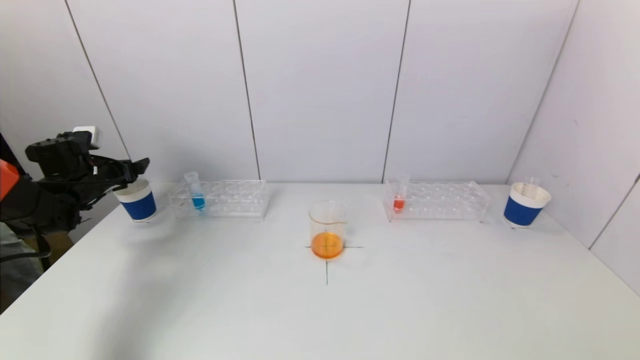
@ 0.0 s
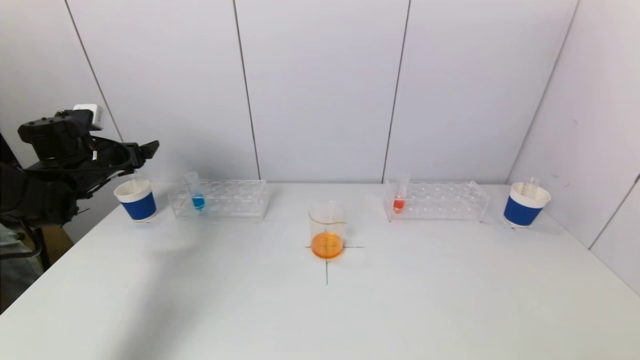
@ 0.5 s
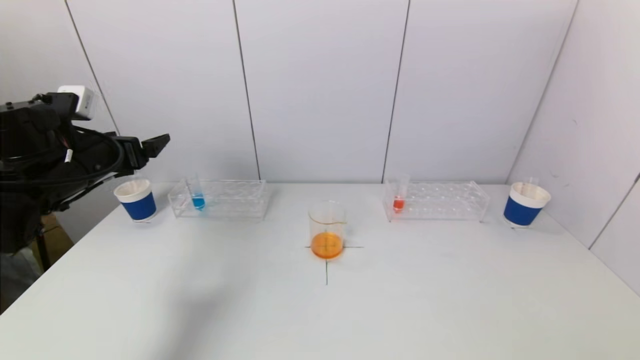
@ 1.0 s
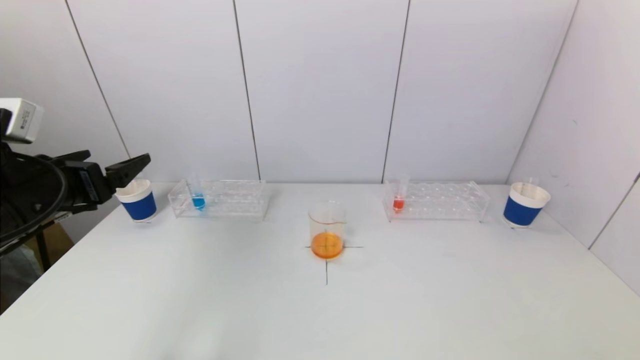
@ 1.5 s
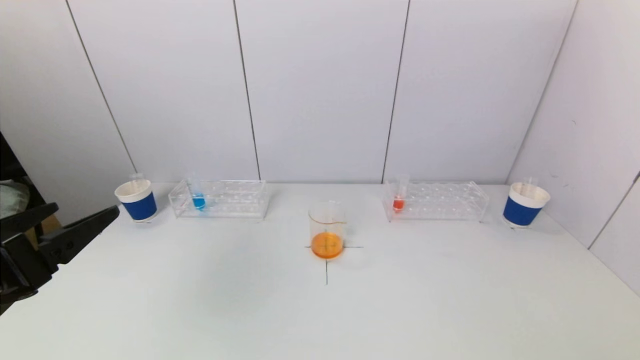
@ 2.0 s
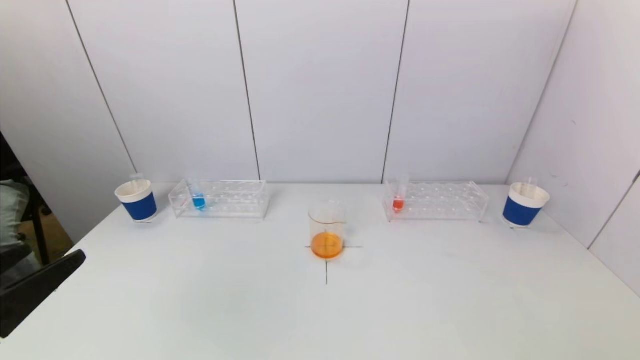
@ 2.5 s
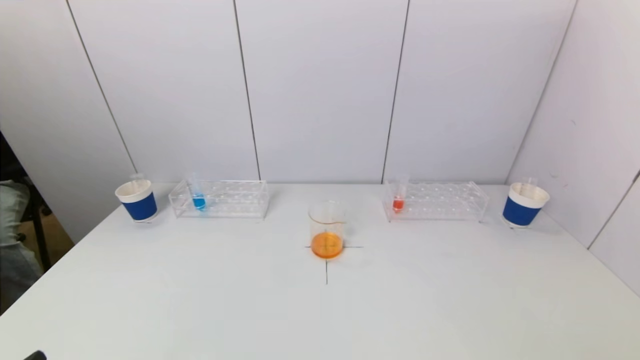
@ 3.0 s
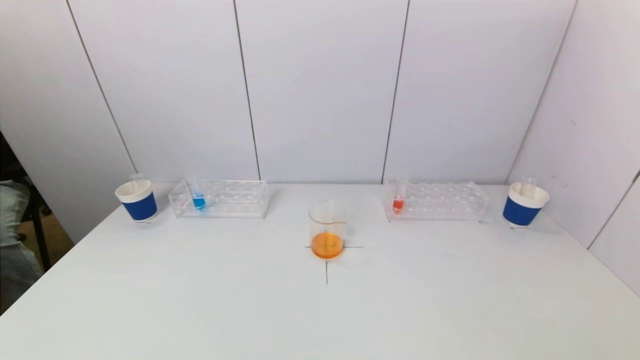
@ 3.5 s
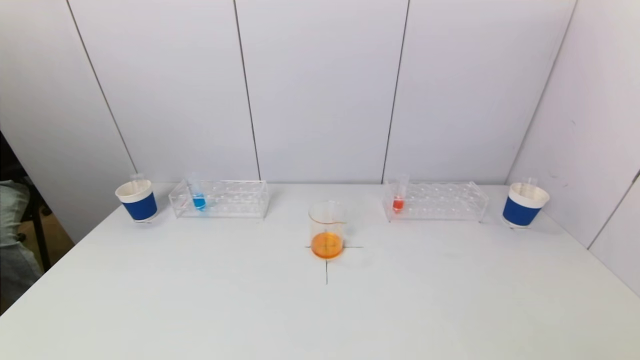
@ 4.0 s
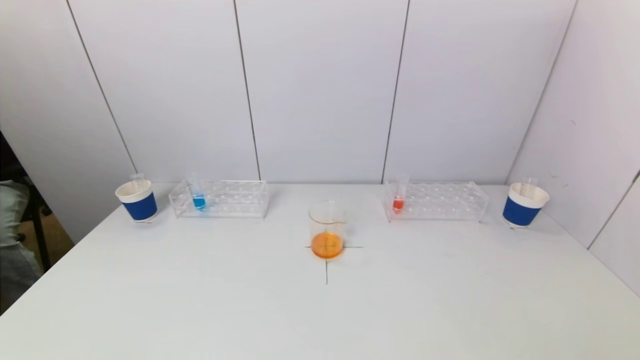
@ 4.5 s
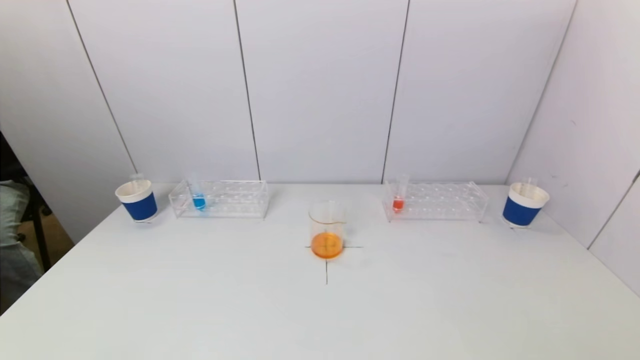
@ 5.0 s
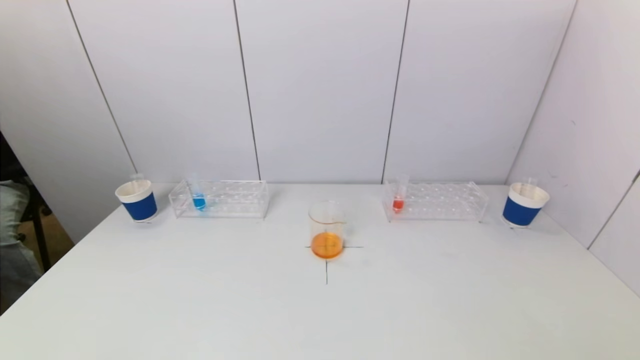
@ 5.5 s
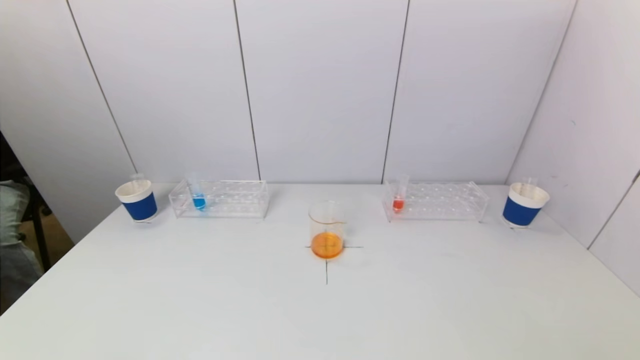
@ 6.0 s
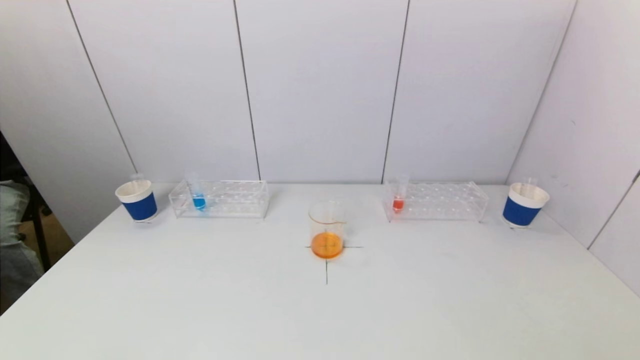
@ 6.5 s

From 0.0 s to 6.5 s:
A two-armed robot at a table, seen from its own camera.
Task of the whole recording: pick up a test tube with pigment on left test tube rack and a test tube with pigment on right test tube rack by grippers and pour them into the beaker.
From 0.0 s to 2.0 s: The left gripper is displaced backward and to the right by approximately 35 cm.
From 2.0 s to 4.5 s: The left gripper shifts approximately 20 cm backward and downward.

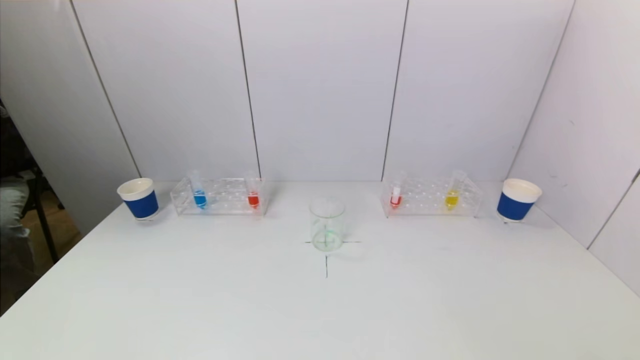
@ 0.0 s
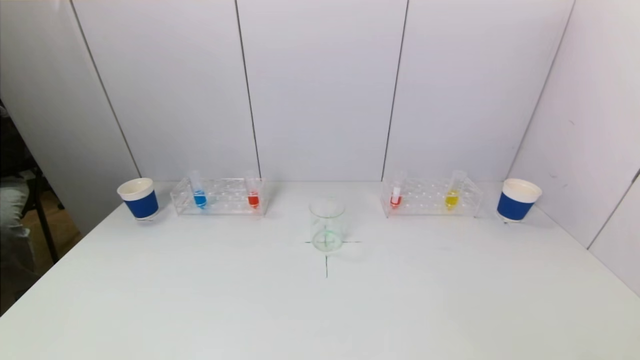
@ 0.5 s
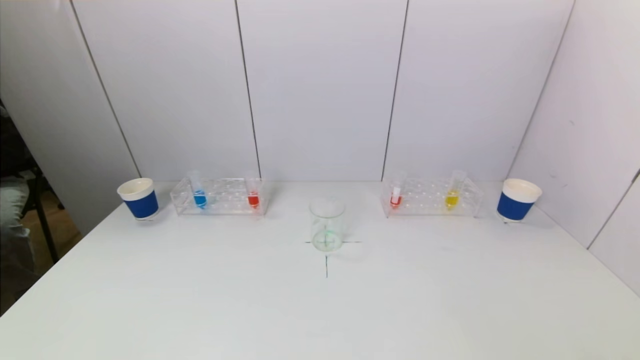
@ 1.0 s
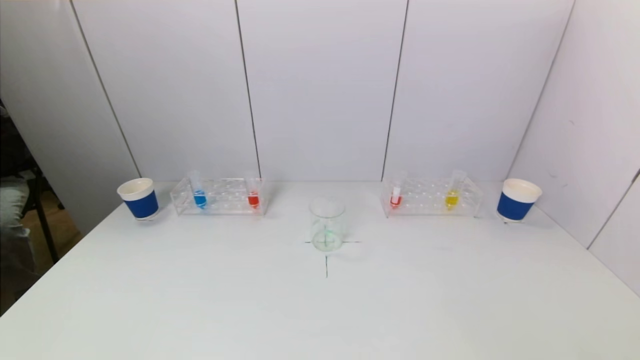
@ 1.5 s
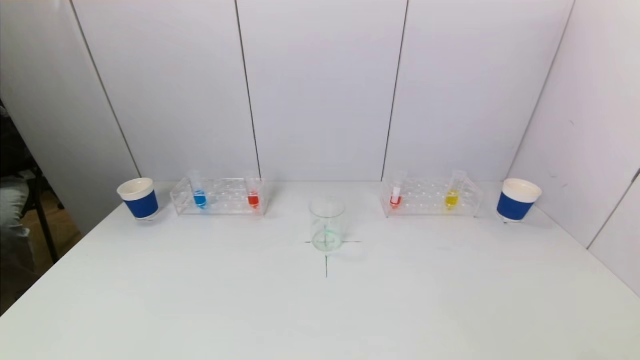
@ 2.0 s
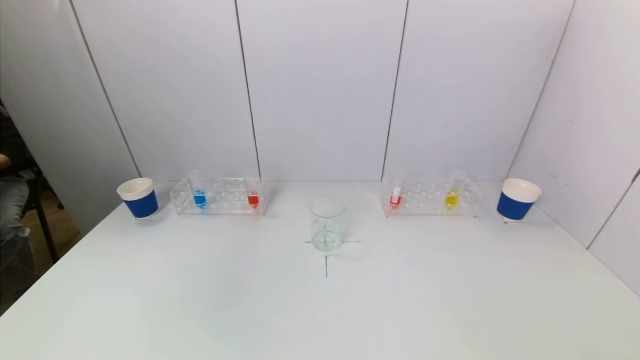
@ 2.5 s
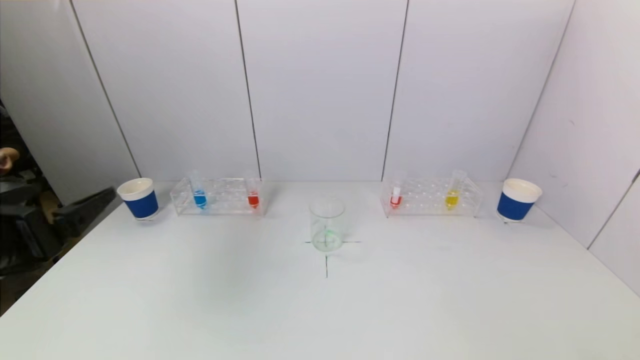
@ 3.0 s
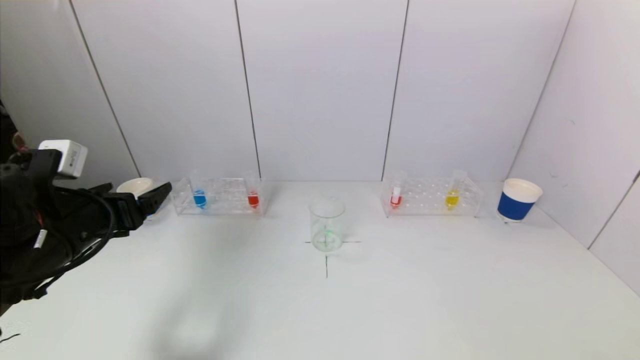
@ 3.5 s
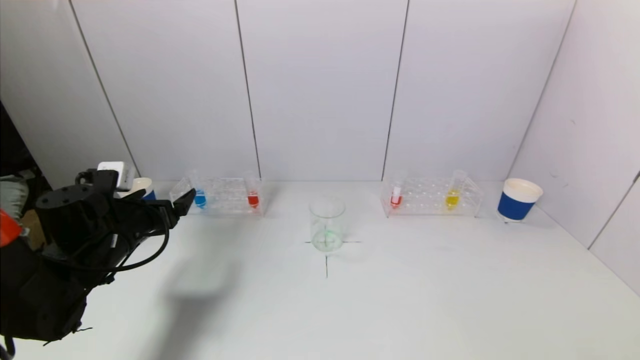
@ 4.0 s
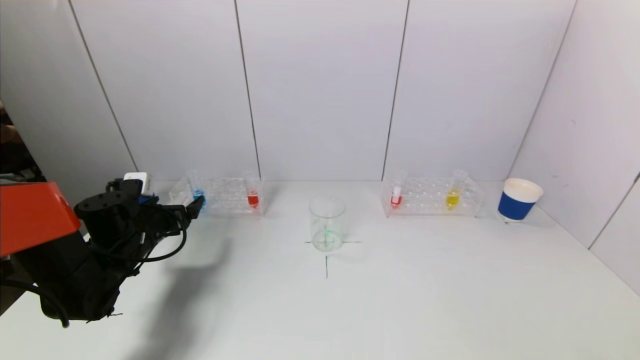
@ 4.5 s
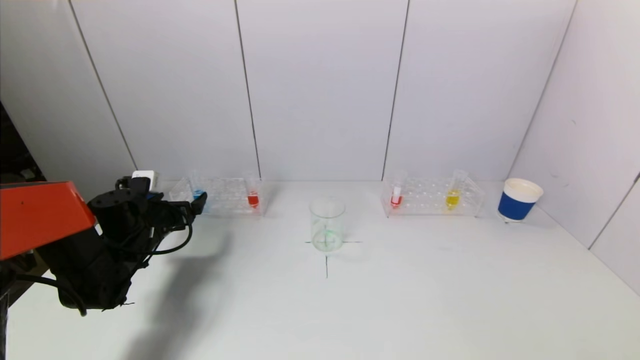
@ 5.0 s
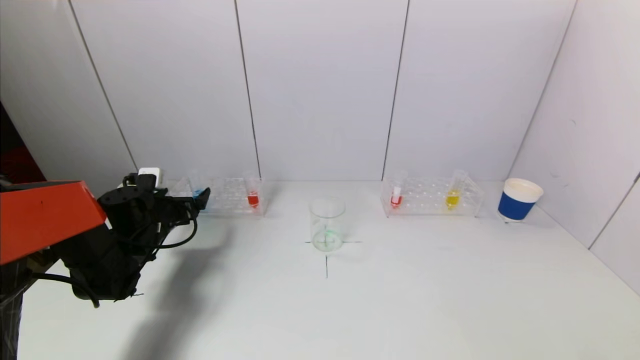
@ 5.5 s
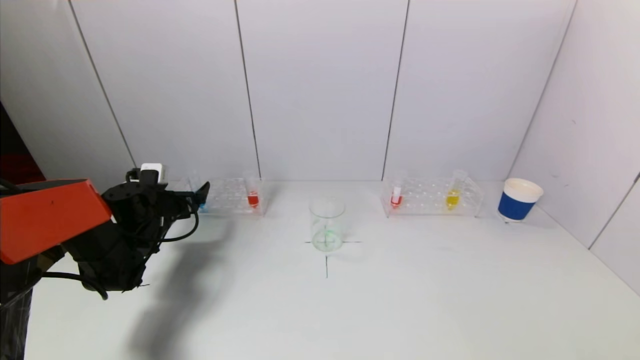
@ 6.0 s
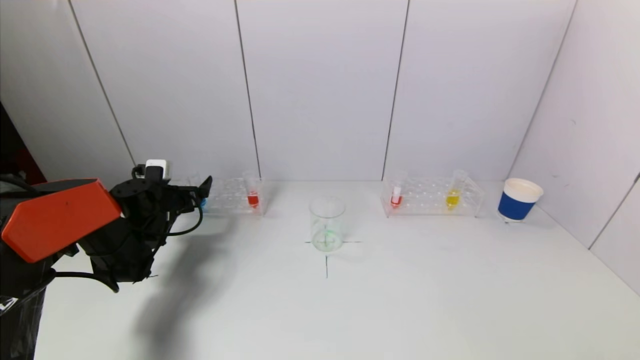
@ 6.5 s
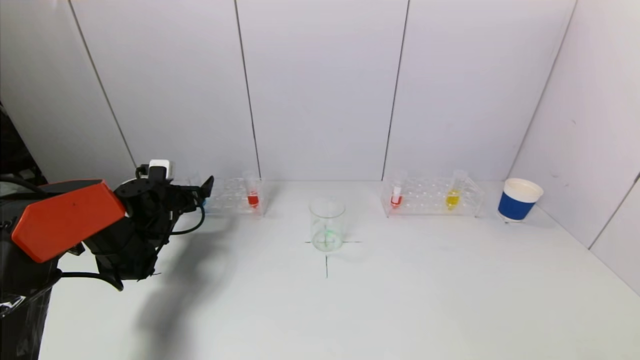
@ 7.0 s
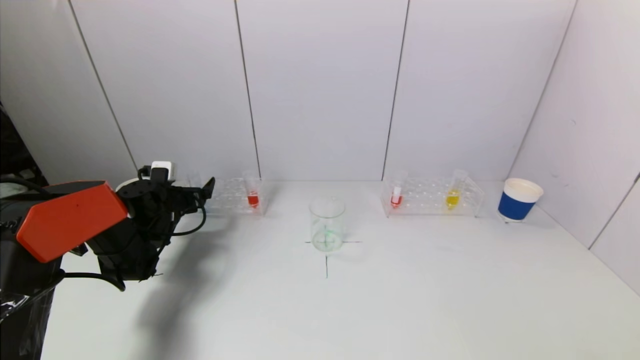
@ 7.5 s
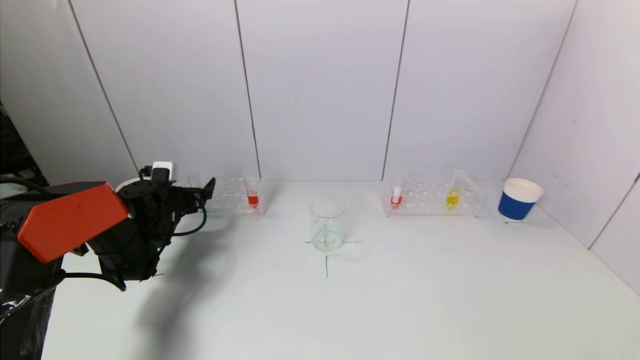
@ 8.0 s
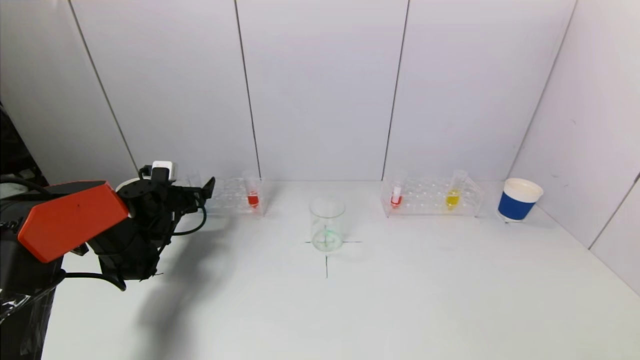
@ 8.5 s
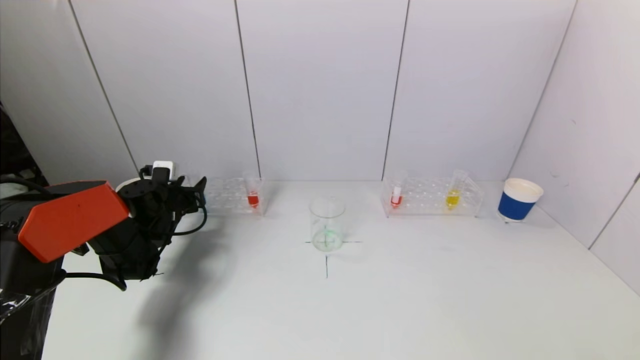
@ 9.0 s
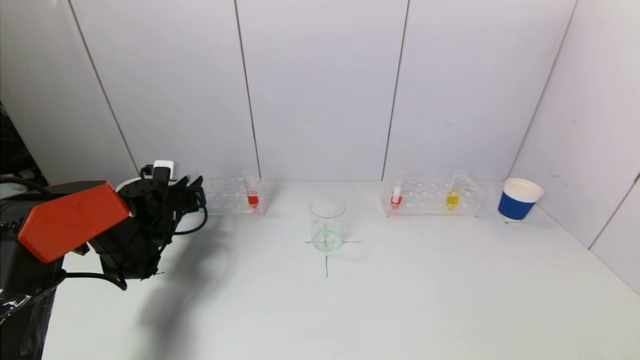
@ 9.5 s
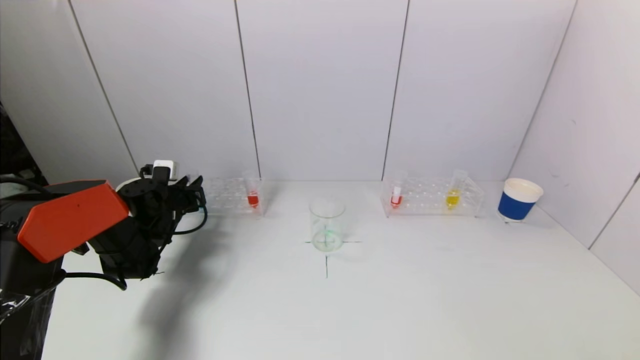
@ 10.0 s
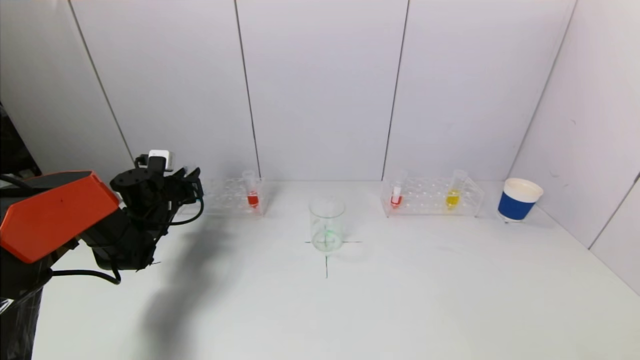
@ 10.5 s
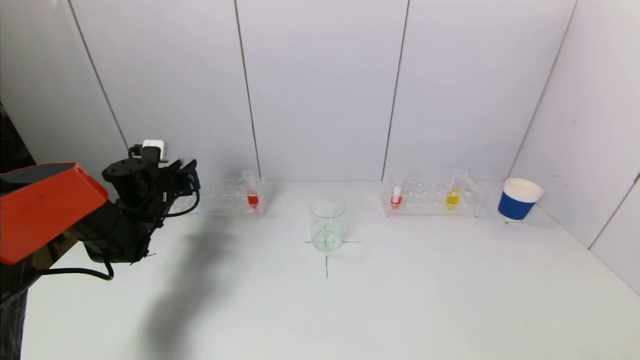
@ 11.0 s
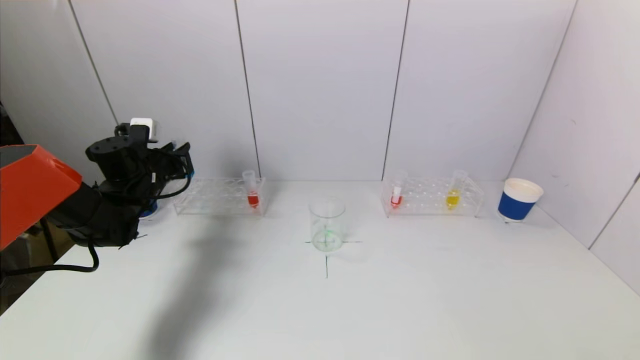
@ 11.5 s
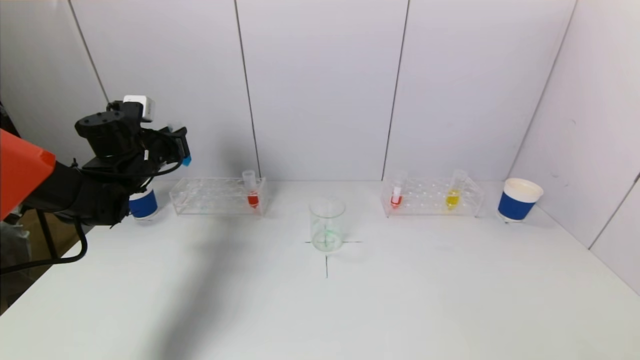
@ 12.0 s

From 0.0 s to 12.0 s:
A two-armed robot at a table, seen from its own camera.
Task of the whole recording: pick up a test tube with pigment on left test tube rack and a test tube with pigment on right test tube rack by grippers and pour them into the beaker.
Step, from 0.0 s to 9.5 s: Grasp the blue reagent with the left gripper.
From 2.0 s to 4.0 s: The left gripper heads forward, covering approximately 35 cm.
From 4.0 s to 6.0 s: The left gripper heads forward and downward, covering about 10 cm.
From 6.0 s to 8.0 s: The grippers stay close to where they were, moving slightly.
From 8.0 s to 10.0 s: The left gripper closes.
From 10.0 s to 12.0 s: The left gripper heads upward, covering about 15 cm.

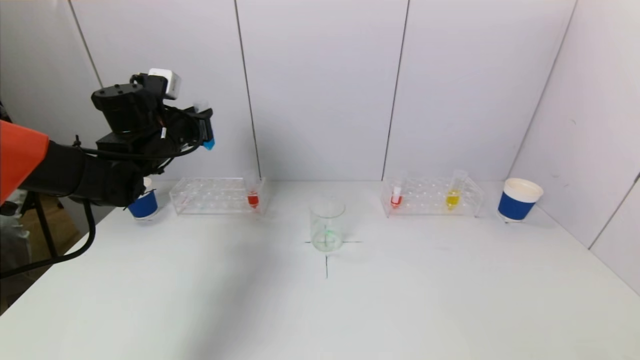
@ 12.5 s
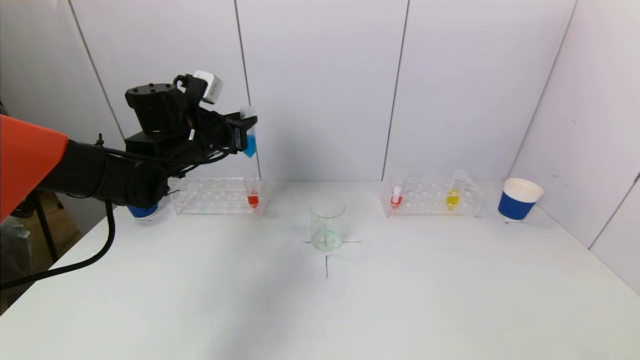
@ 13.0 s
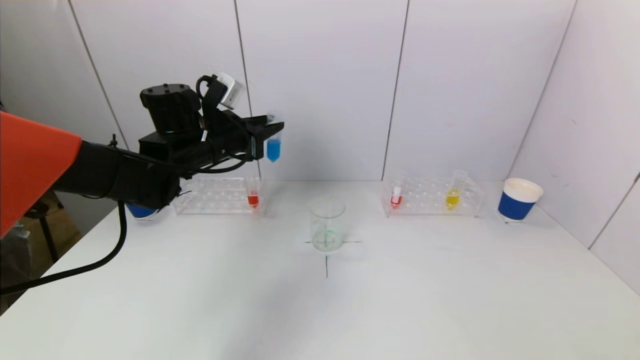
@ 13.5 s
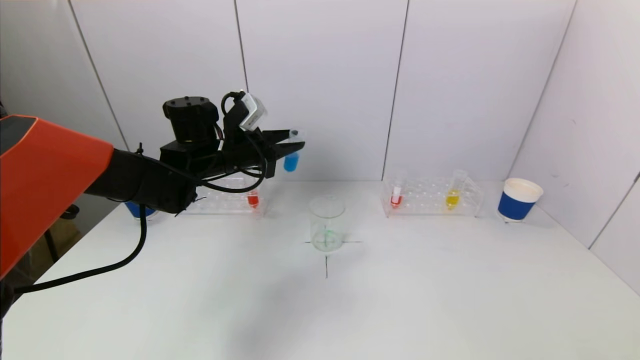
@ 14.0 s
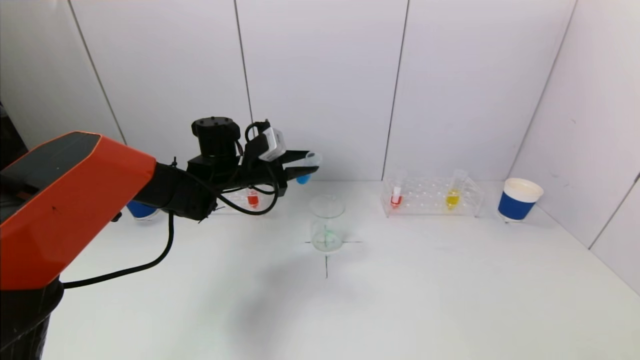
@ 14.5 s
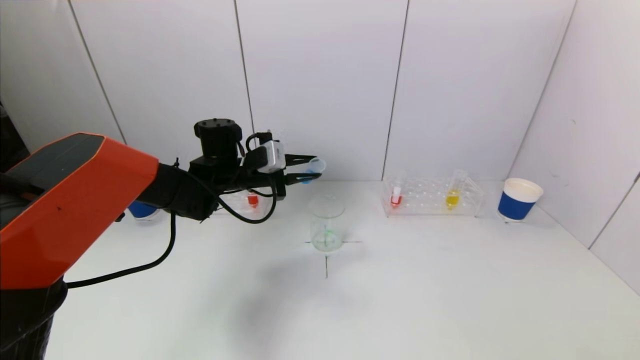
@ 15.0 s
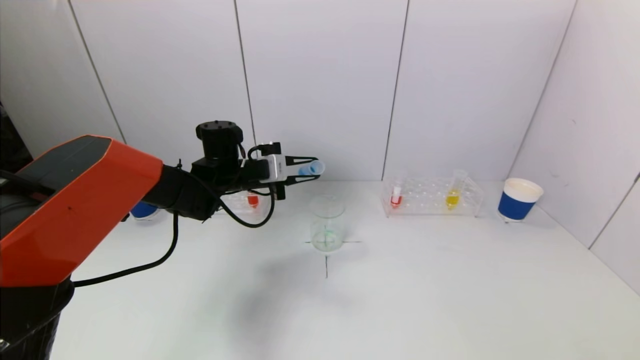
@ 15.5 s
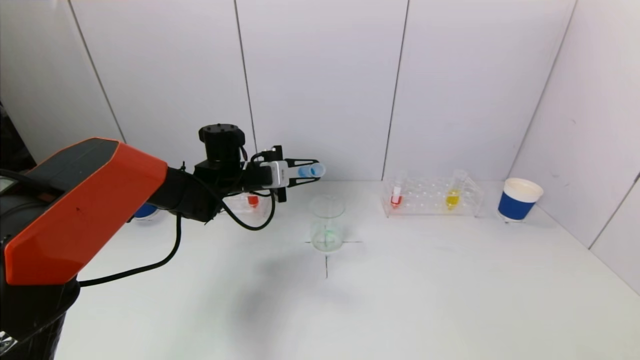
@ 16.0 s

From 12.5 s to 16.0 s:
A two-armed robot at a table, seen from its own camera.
Task of the whole recording: pick up a test tube with pigment on left test tube rack and a test tube with pigment on right test tube rack by grippers and pour them into the beaker.
From 12.5 s to 14.5 s: The left gripper moves to the right and downward, roughly 15 cm.
